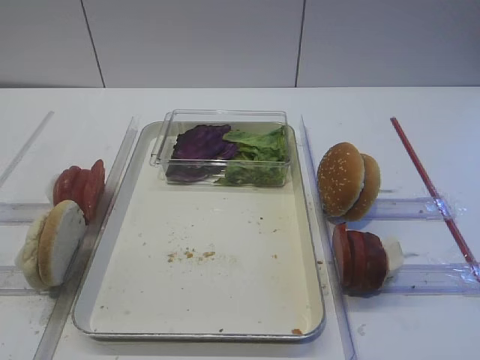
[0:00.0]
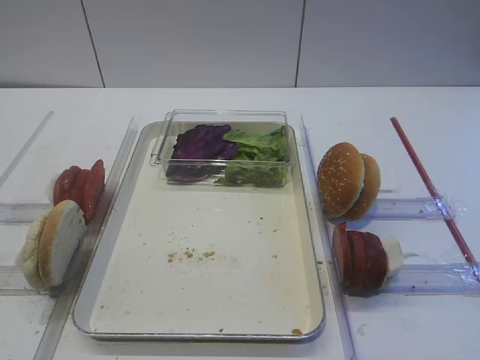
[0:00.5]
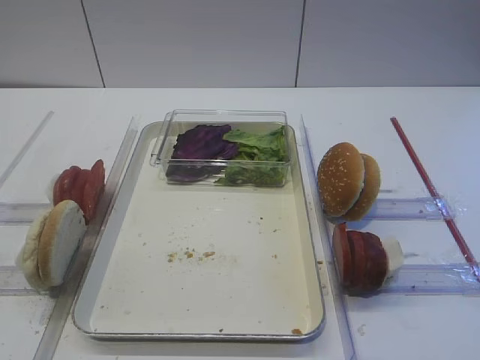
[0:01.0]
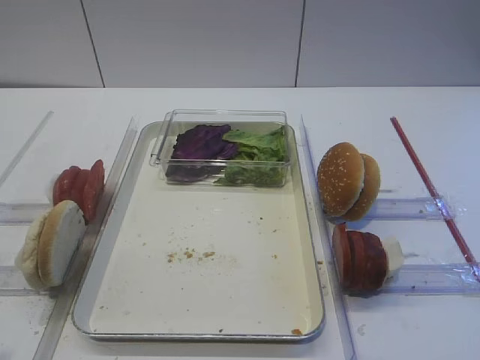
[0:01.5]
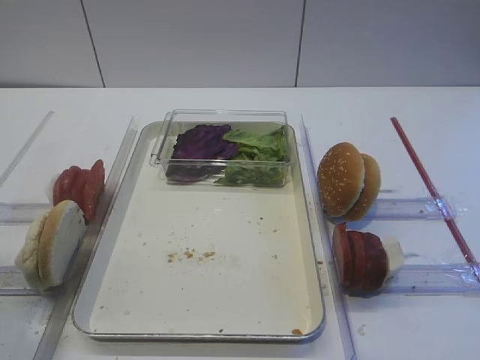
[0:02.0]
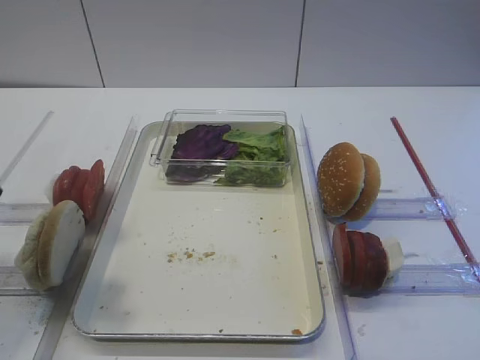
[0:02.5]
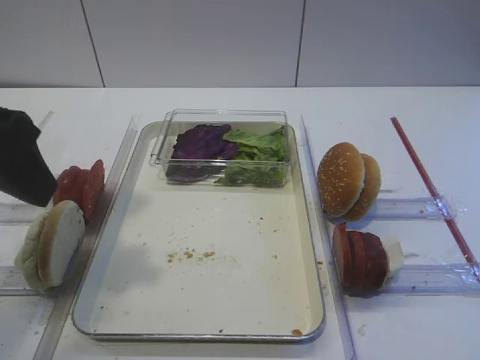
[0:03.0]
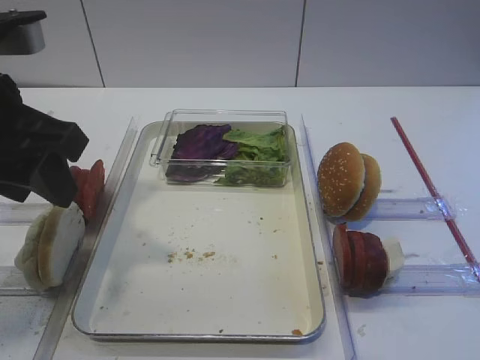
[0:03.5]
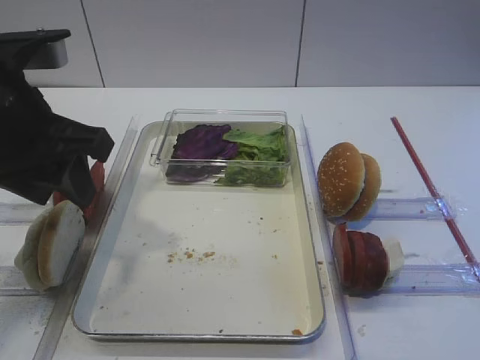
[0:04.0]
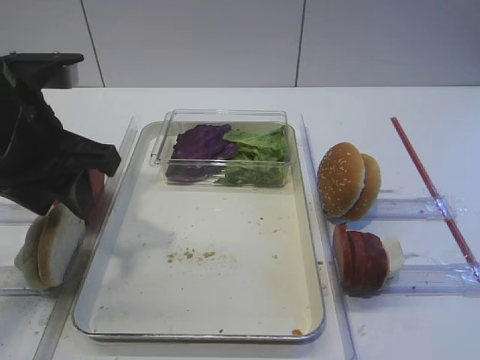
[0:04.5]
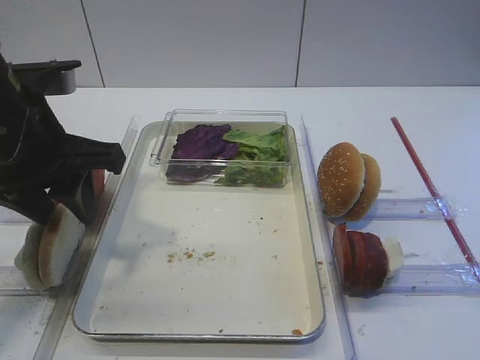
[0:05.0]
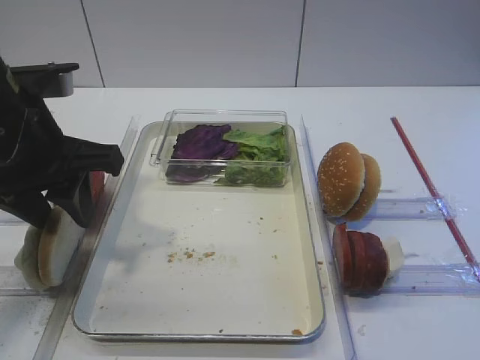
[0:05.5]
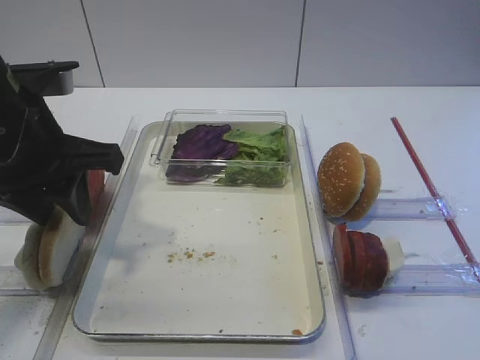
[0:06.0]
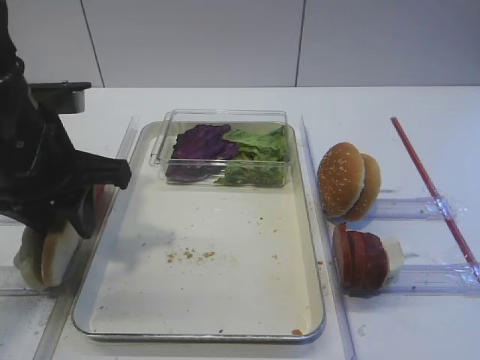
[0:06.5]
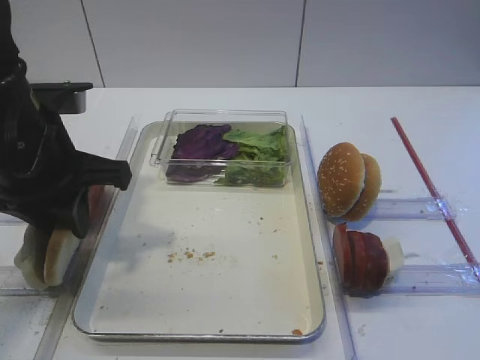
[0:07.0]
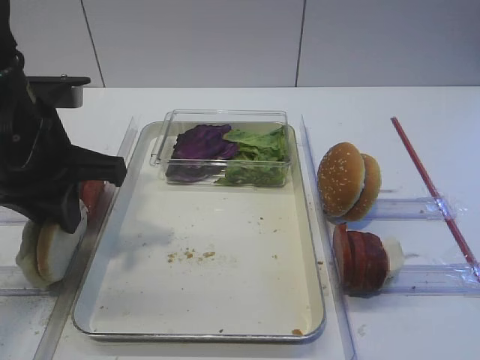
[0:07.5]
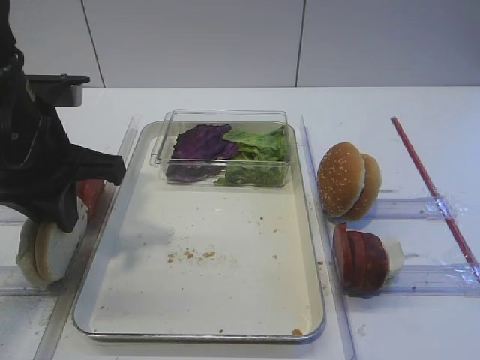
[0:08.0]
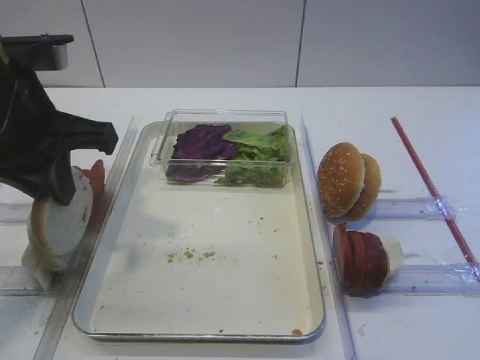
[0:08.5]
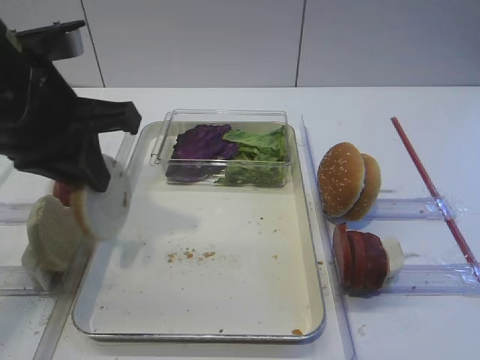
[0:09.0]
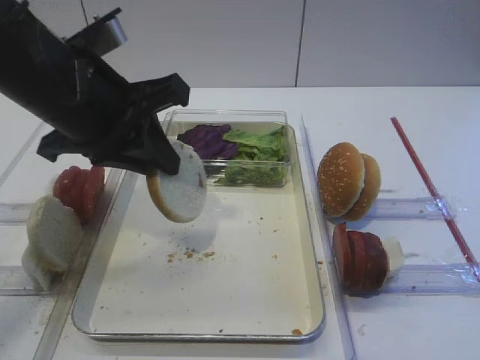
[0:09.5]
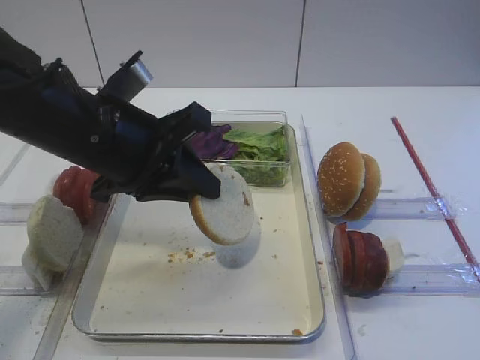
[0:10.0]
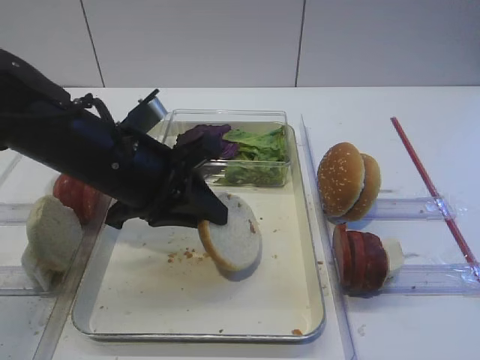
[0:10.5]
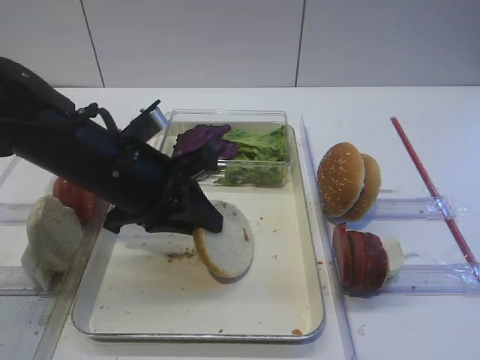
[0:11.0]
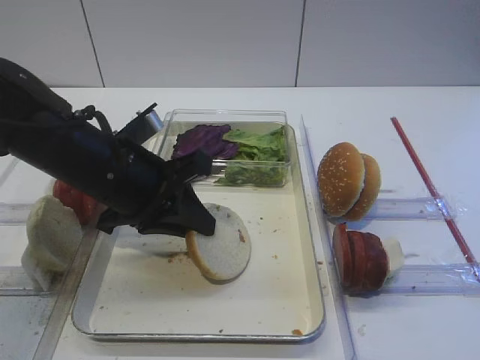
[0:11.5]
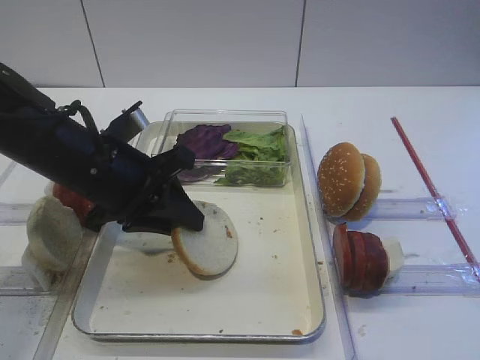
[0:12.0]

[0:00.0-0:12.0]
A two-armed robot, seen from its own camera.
Step, 0:00.0 to 0:08.5: Pick up the bread slice with the left gripper.
0:02.0 to 0:04.0: The left gripper goes about 20 cm forward and to the right, and closes up.
0:04.0 to 0:06.0: There are only small adjustments of the grippers.
0:06.0 to 0:08.0: The left gripper closes up.
0:08.0 to 0:10.0: The left gripper travels to the right by roughly 5 cm.
0:10.0 to 0:12.0: The left gripper goes some 5 cm downward.

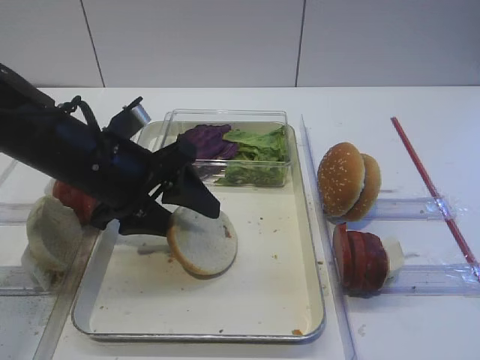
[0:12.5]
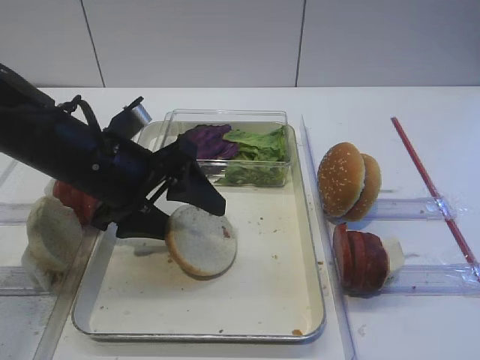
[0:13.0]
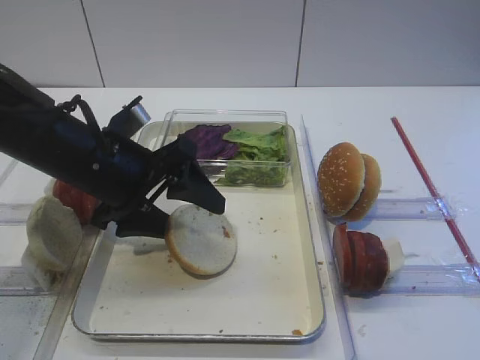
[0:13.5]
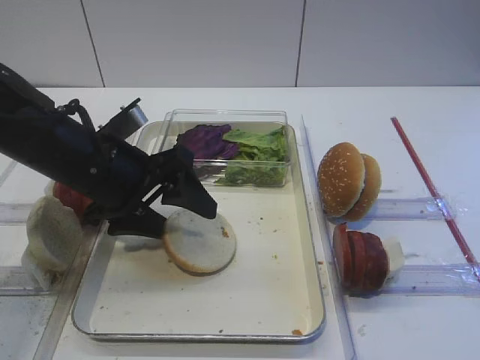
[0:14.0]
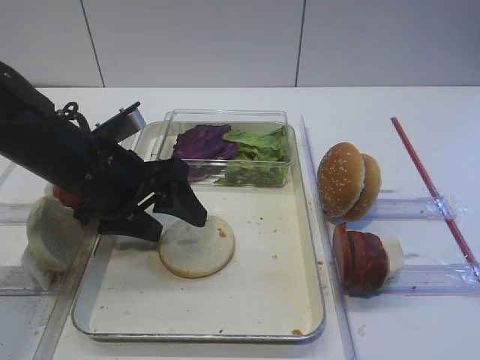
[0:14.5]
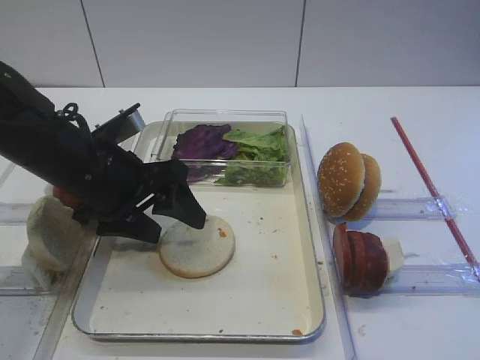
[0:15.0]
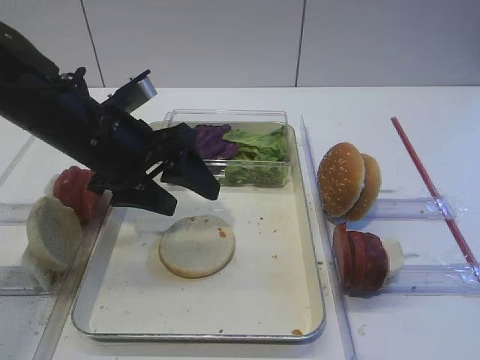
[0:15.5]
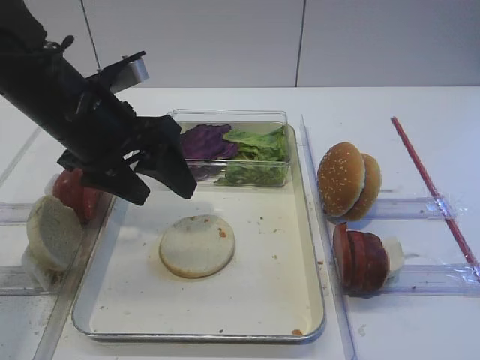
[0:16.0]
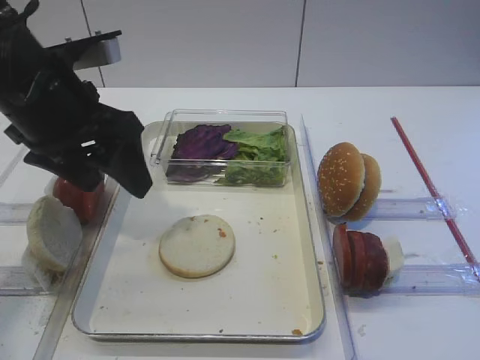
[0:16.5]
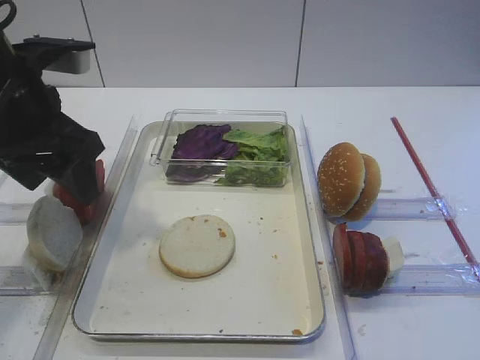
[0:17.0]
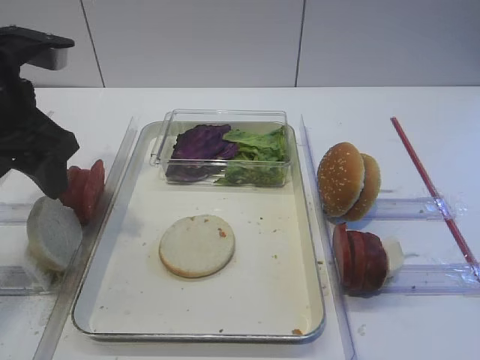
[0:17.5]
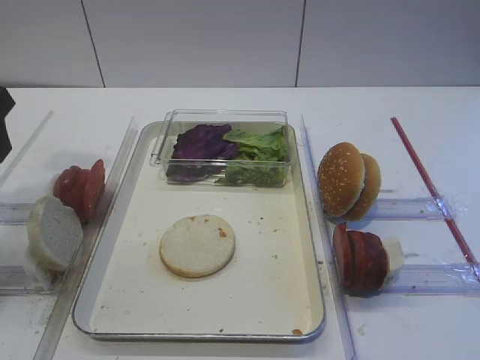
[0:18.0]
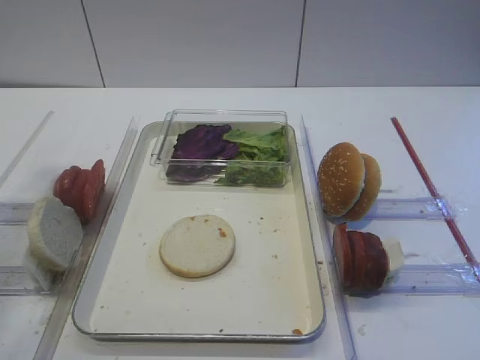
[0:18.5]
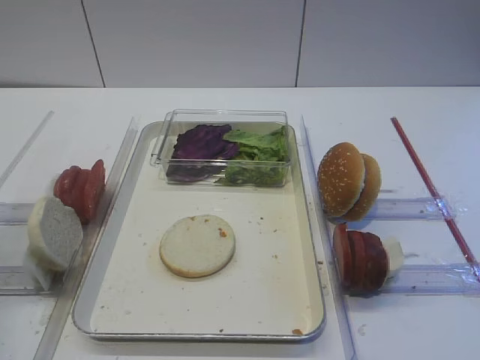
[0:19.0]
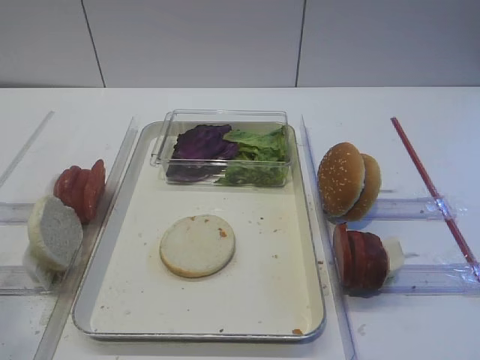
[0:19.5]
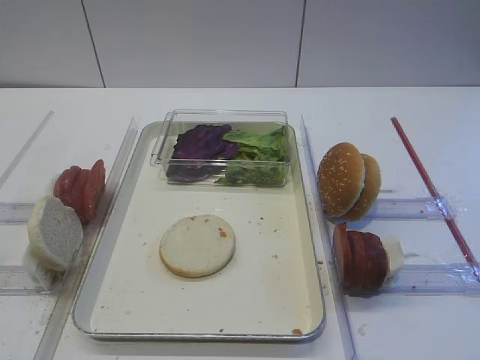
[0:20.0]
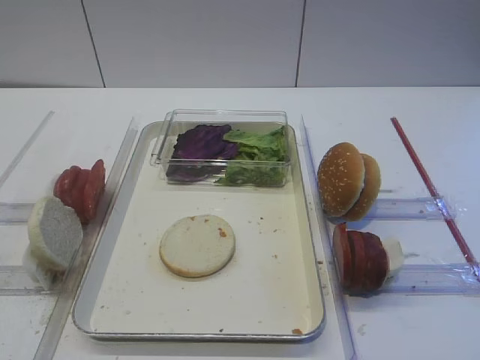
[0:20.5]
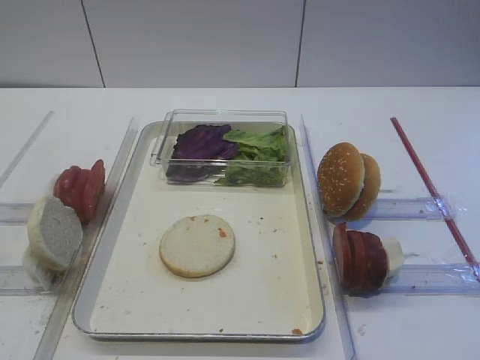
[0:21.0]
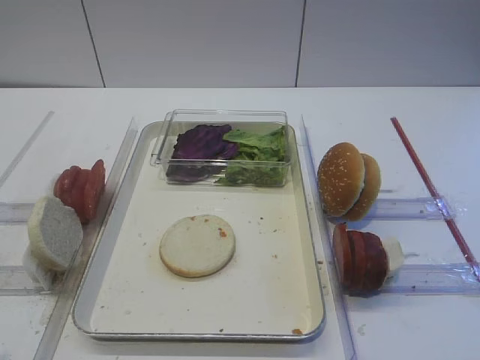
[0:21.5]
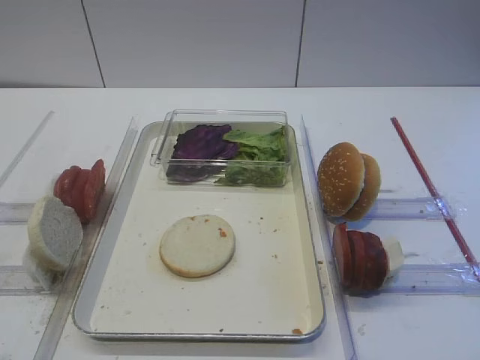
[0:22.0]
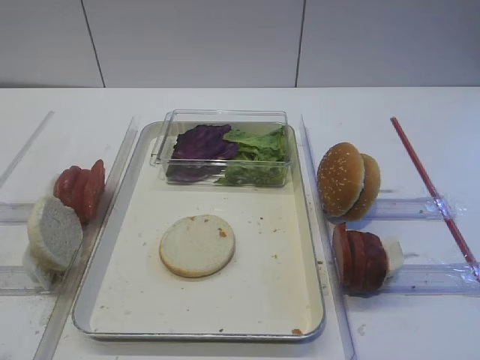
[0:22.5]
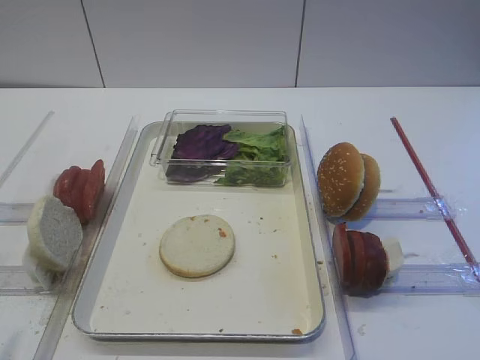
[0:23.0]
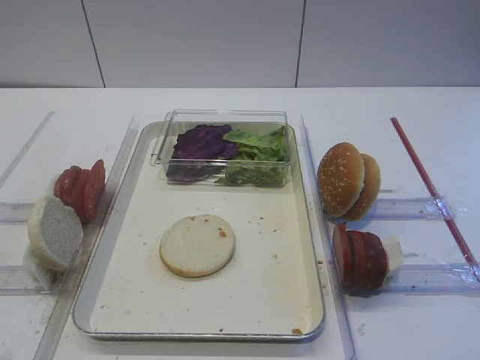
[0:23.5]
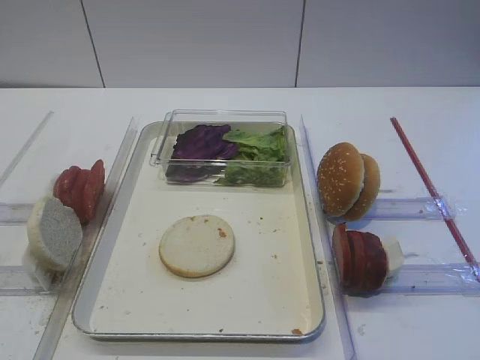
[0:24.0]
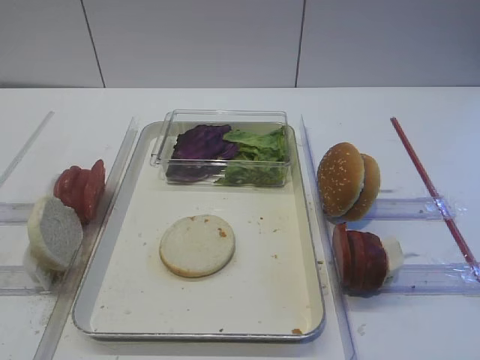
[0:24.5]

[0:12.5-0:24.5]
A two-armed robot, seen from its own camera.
Step, 0:12.5 to 0:15.5: Place the bread slice on the tray with the left gripper.
0:12.5 to 0:14.5: The grippers make only small movements.
0:14.5 to 0:16.5: The left gripper shifts about 10 cm upward.
0:16.5 to 0:18.5: The left gripper shifts some 20 cm upward, backward and to the left.
0:18.5 to 0:20.5: The left gripper shifts approximately 20 cm backward.

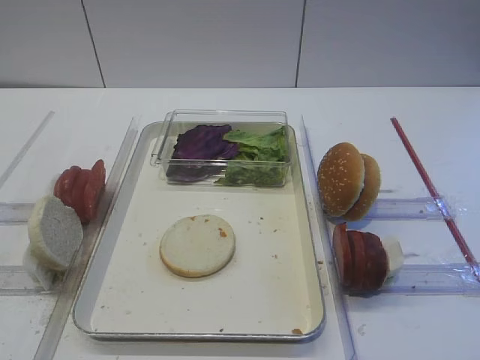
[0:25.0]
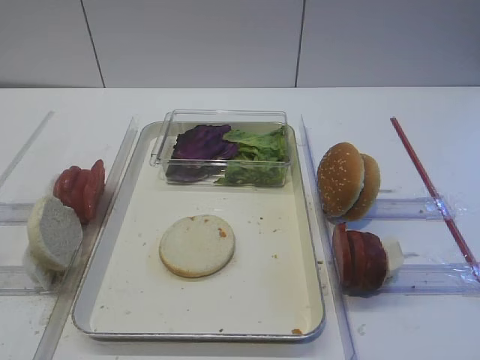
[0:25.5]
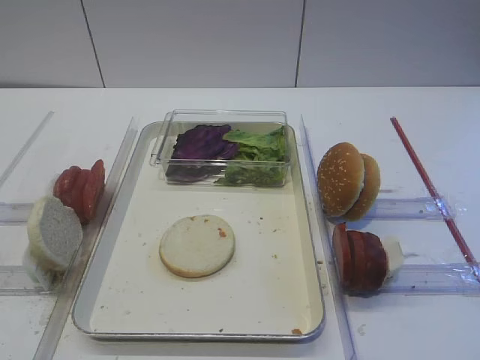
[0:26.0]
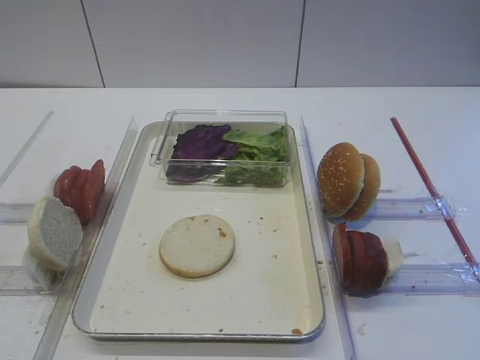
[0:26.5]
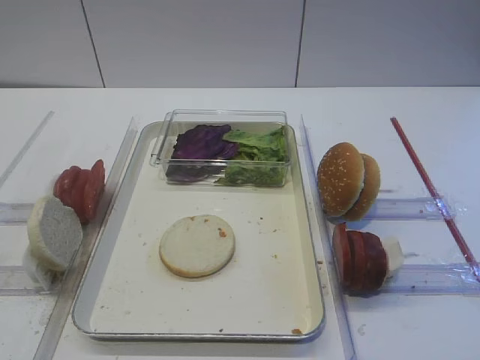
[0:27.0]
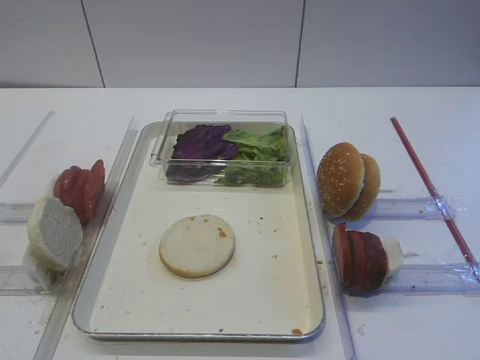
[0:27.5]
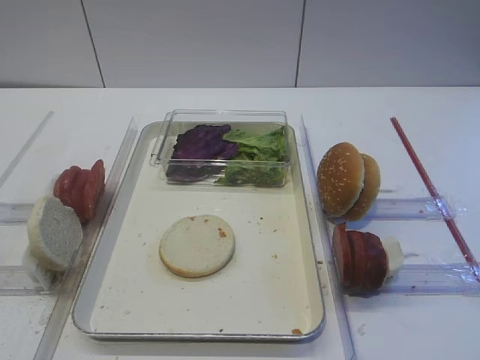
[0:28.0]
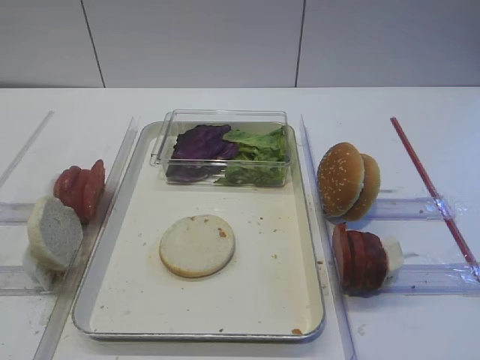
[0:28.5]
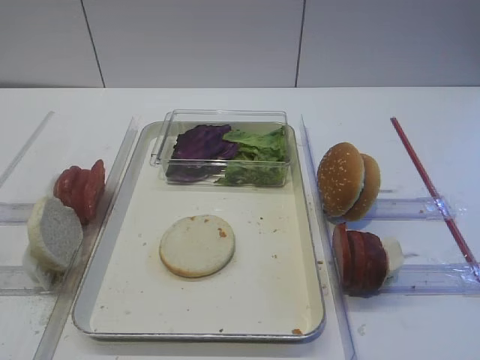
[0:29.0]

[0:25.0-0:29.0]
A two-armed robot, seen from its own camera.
0:25.0 to 0:29.0: The two grippers keep their place.
